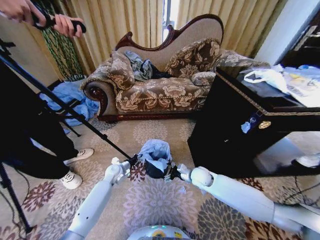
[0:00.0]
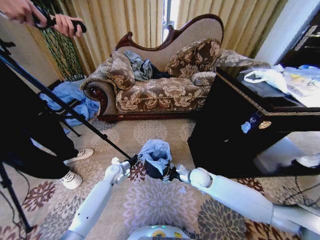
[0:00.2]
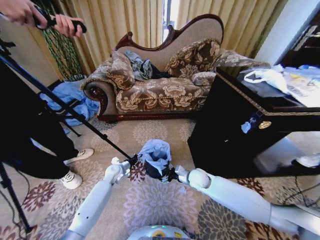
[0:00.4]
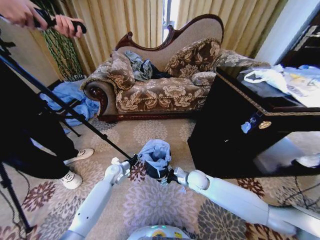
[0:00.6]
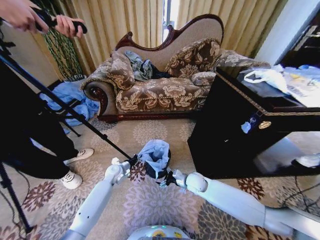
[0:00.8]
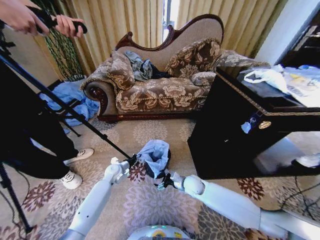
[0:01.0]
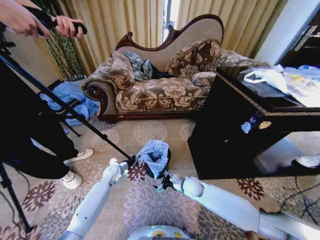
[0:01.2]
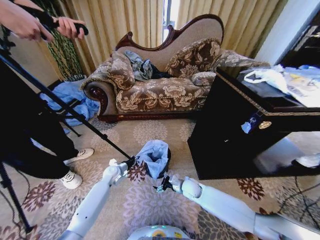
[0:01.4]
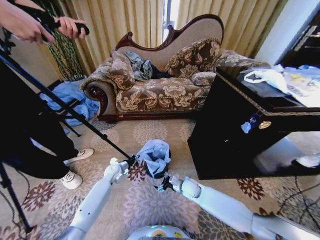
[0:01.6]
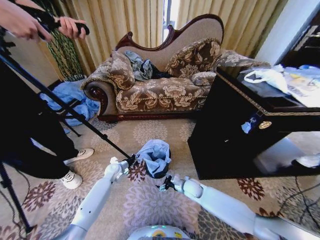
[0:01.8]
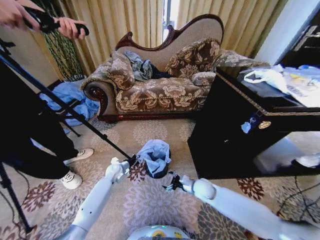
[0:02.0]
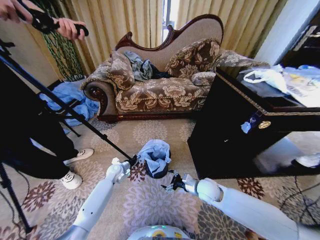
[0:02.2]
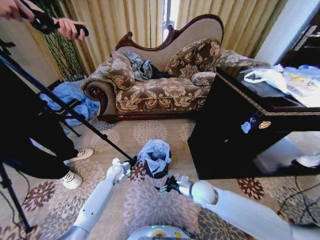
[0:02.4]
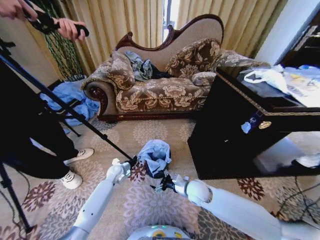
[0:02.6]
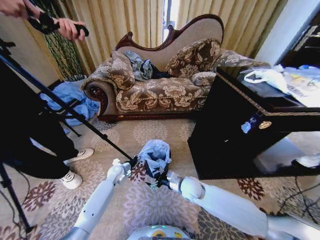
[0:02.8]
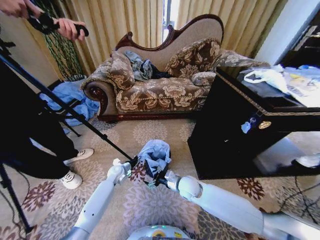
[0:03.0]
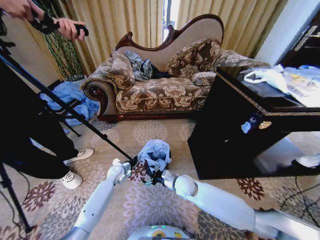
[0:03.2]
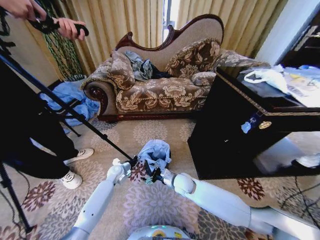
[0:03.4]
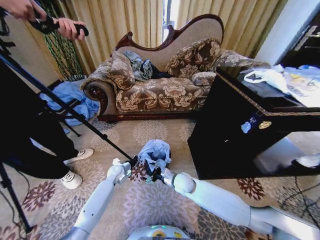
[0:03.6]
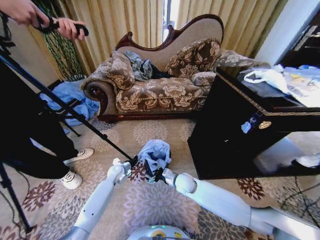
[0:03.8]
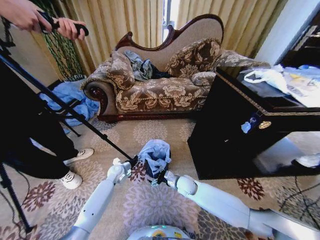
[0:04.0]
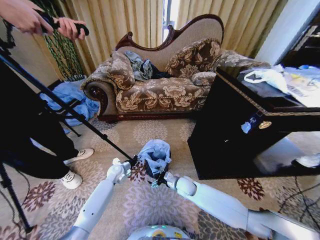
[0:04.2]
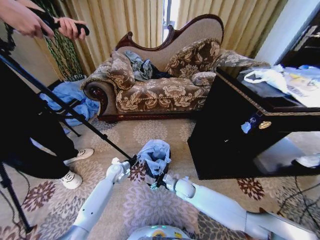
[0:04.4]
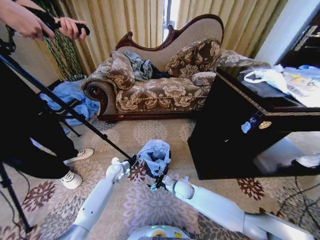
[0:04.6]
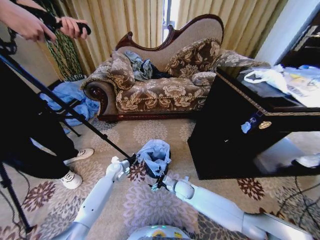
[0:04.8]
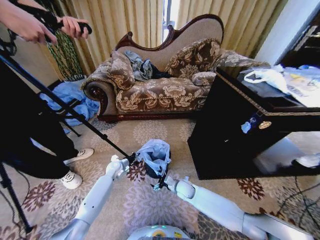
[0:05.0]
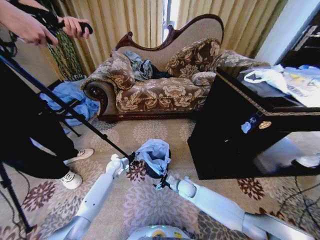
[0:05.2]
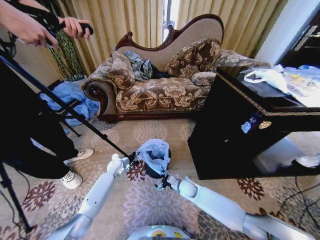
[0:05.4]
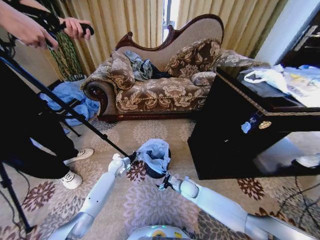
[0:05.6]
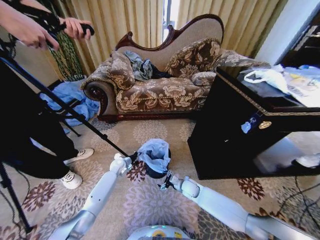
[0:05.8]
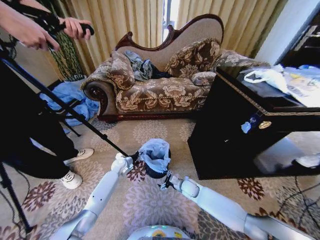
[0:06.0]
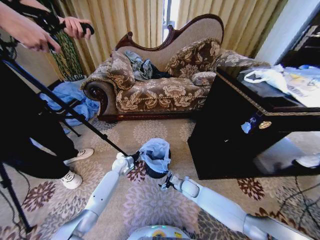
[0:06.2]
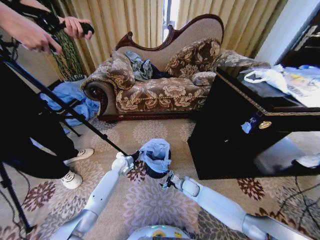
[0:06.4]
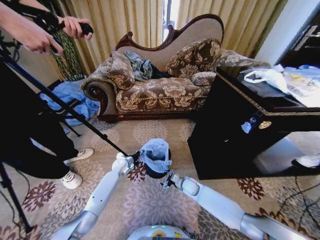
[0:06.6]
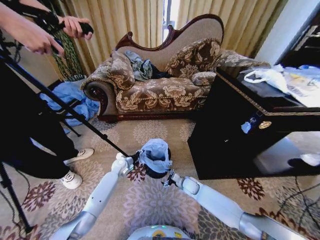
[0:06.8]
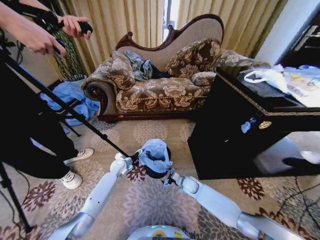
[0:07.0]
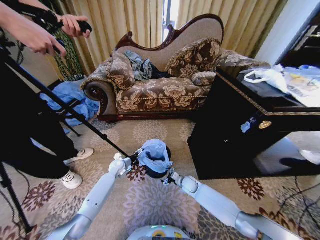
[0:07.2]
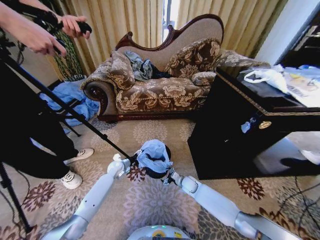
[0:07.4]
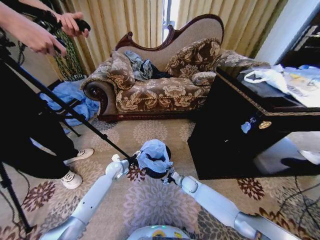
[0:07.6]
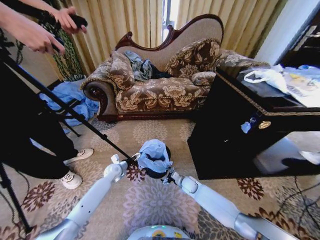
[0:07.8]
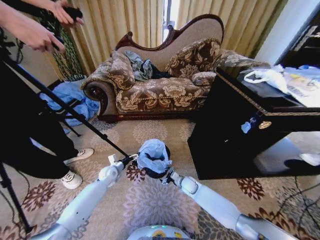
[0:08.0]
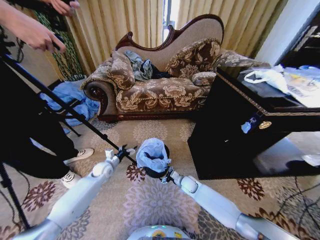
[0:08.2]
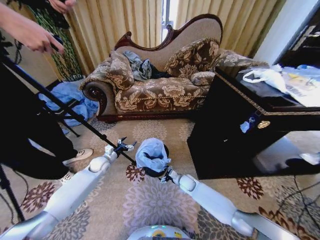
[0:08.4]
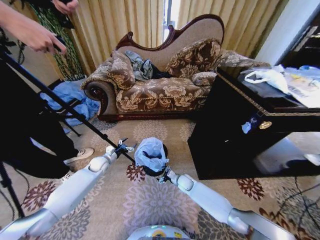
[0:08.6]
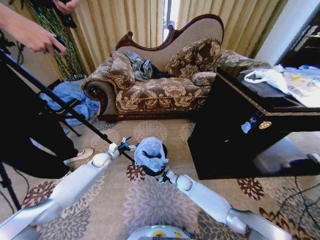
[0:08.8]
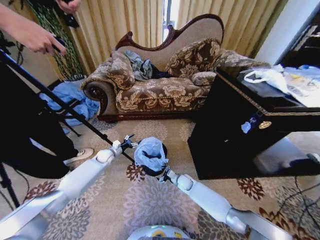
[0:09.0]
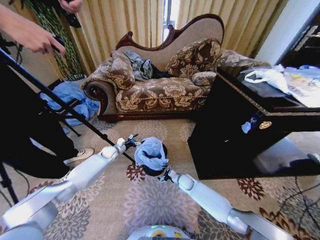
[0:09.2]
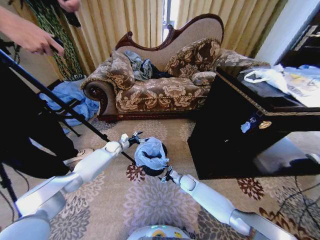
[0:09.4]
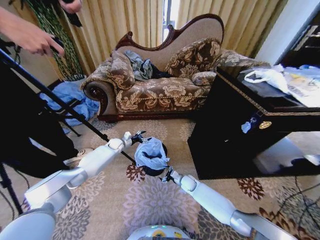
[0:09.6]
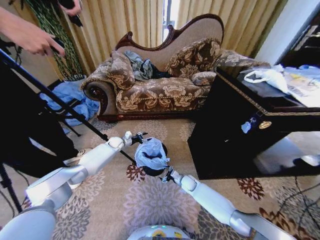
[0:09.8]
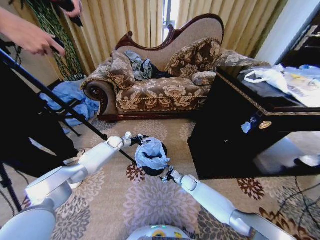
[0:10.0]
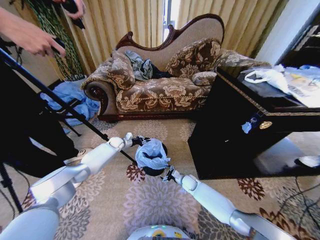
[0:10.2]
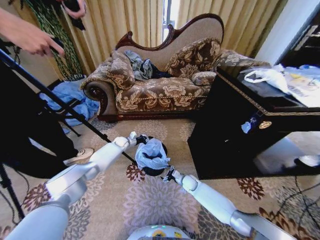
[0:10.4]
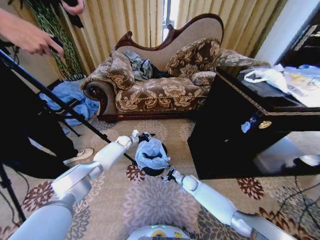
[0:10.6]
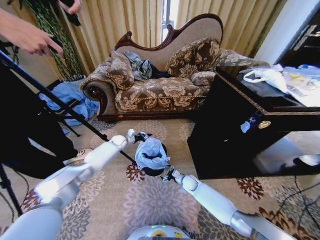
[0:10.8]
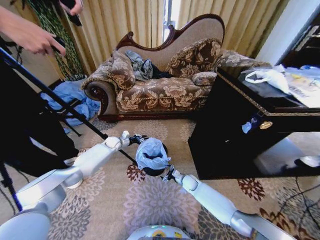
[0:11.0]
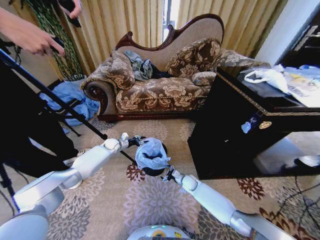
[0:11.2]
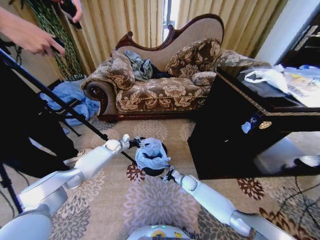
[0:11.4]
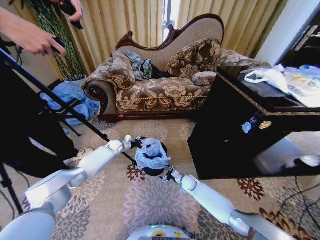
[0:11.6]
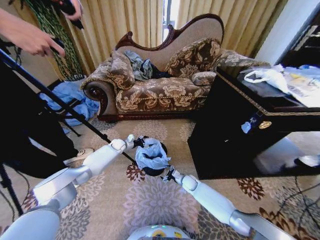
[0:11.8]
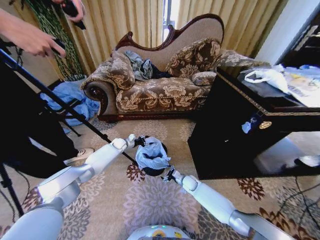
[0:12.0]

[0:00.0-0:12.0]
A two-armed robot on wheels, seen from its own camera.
Task of the whole recording: Place a garbage bag over the trash bin.
0:00.0 to 0:01.6: The right gripper shifts about 10 cm downward.
0:01.6 to 0:03.0: The right gripper goes some 10 cm upward.
0:03.0 to 0:04.4: The right gripper is displaced downward by some 5 cm.
0:04.4 to 0:06.0: The right gripper ends up roughly 5 cm from where it was.
0:06.0 to 0:07.6: The left gripper opens up.
0:07.6 to 0:09.0: The left gripper moves to the left and forward, roughly 10 cm.
0:09.0 to 0:10.4: The left gripper goes some 15 cm forward and to the right, and closes up.
0:10.4 to 0:12.0: The left gripper opens.

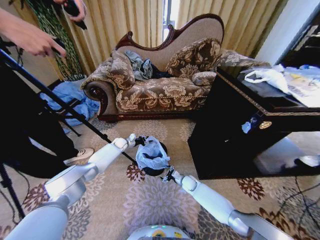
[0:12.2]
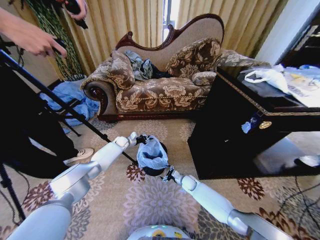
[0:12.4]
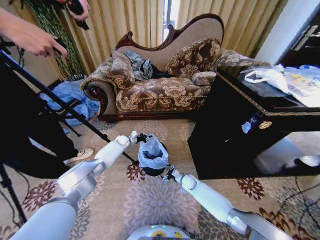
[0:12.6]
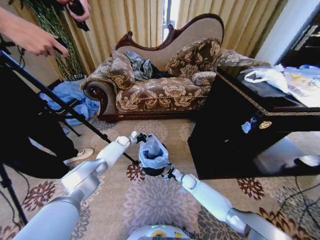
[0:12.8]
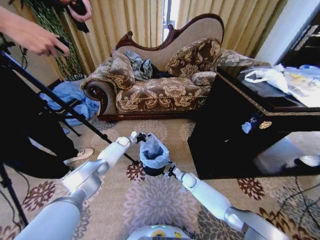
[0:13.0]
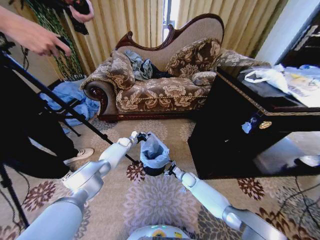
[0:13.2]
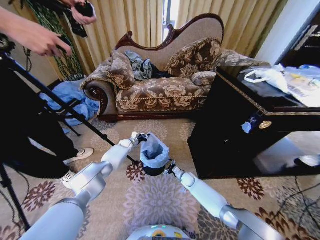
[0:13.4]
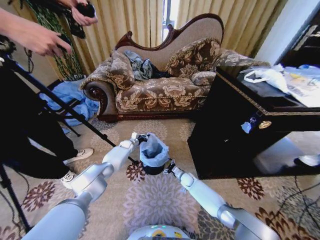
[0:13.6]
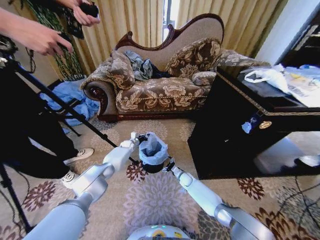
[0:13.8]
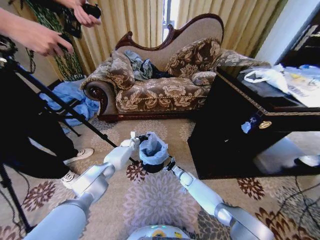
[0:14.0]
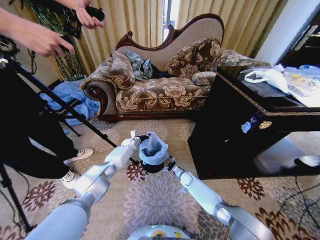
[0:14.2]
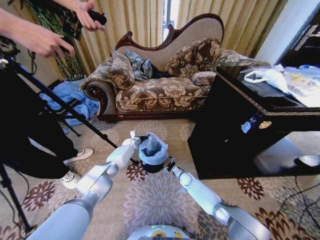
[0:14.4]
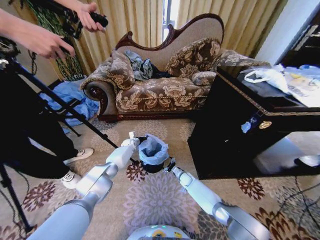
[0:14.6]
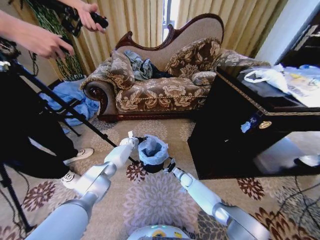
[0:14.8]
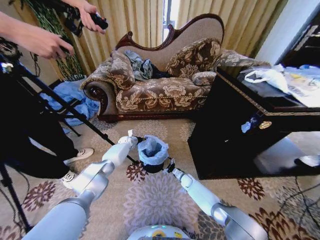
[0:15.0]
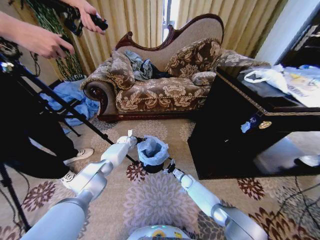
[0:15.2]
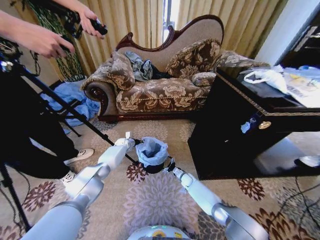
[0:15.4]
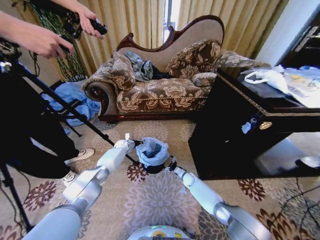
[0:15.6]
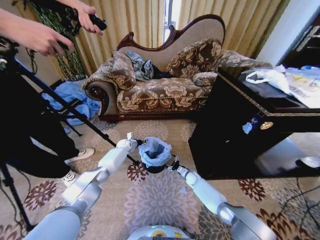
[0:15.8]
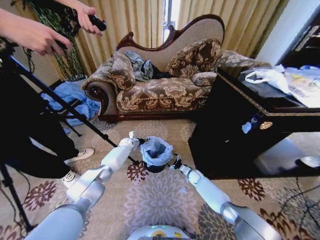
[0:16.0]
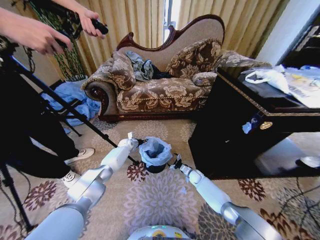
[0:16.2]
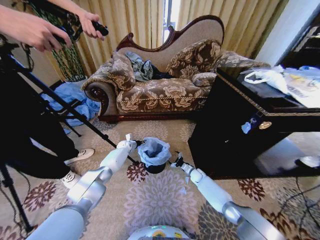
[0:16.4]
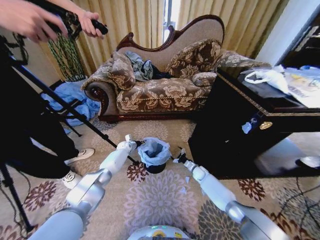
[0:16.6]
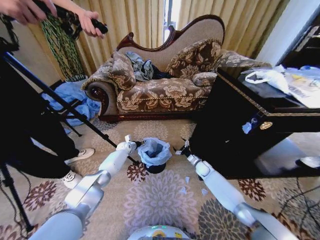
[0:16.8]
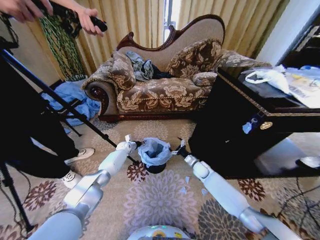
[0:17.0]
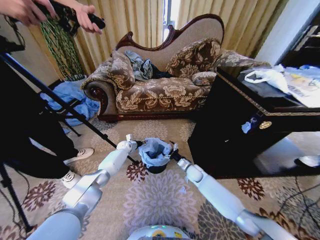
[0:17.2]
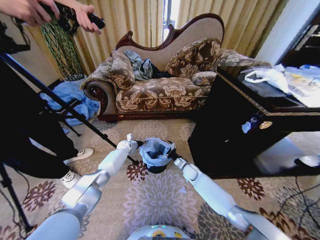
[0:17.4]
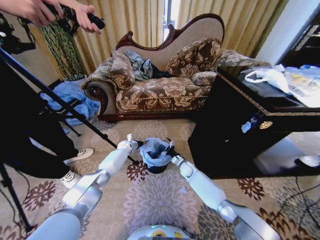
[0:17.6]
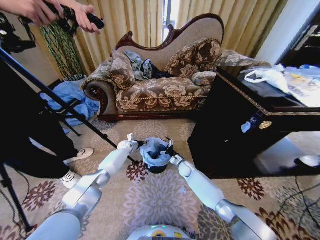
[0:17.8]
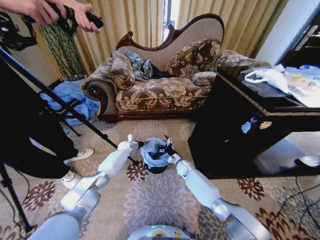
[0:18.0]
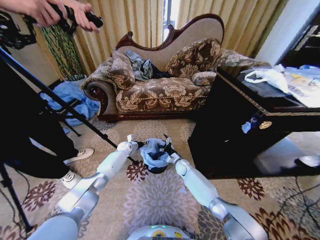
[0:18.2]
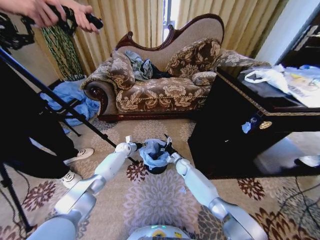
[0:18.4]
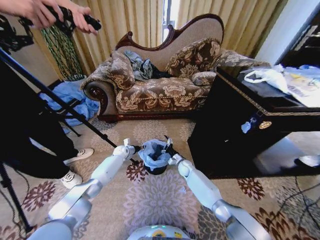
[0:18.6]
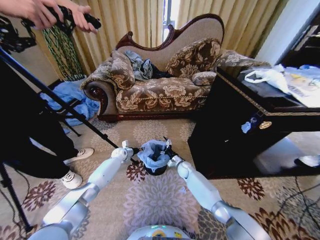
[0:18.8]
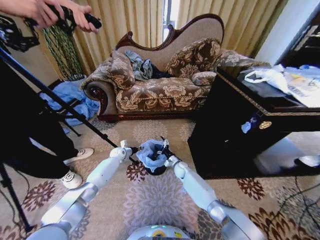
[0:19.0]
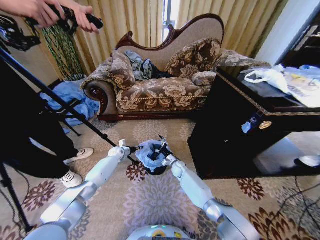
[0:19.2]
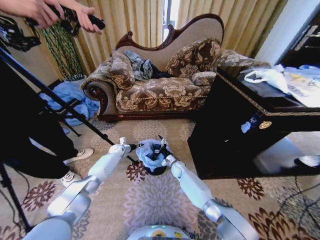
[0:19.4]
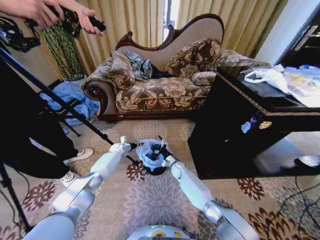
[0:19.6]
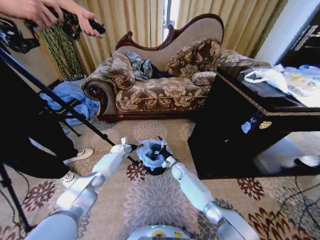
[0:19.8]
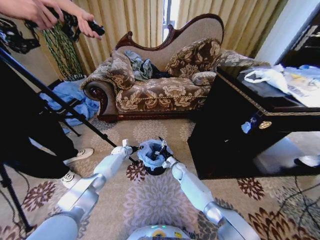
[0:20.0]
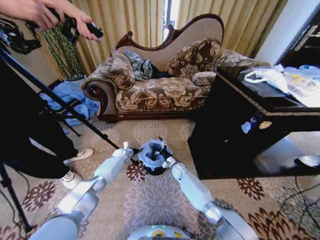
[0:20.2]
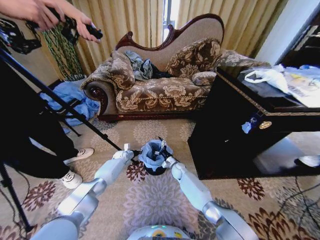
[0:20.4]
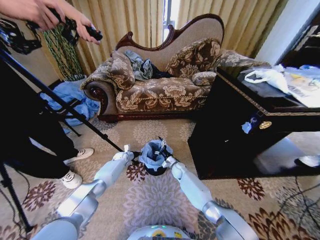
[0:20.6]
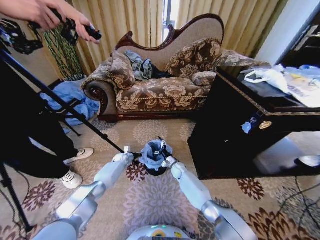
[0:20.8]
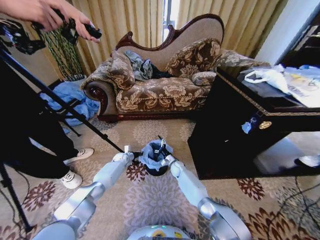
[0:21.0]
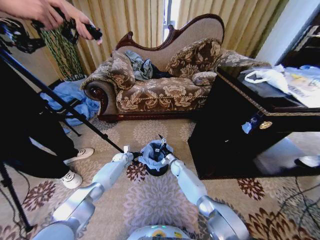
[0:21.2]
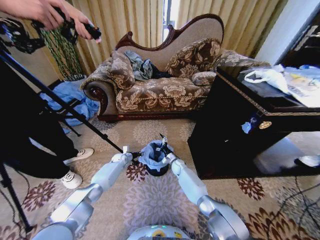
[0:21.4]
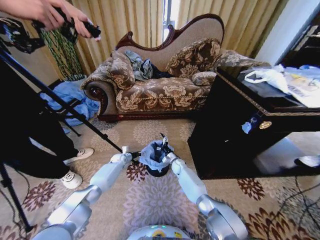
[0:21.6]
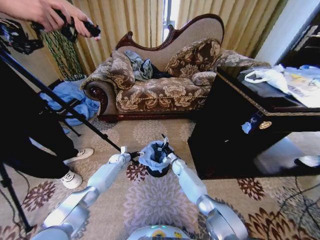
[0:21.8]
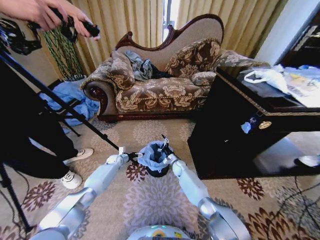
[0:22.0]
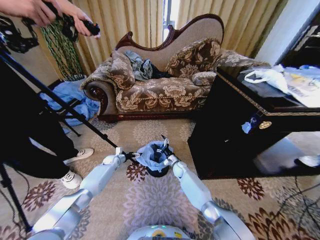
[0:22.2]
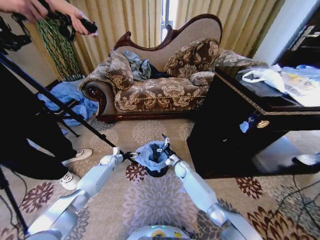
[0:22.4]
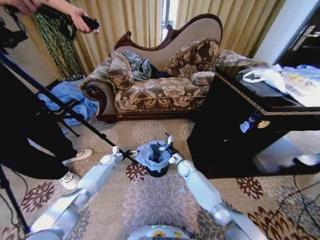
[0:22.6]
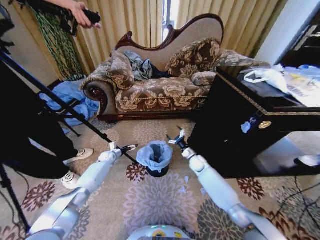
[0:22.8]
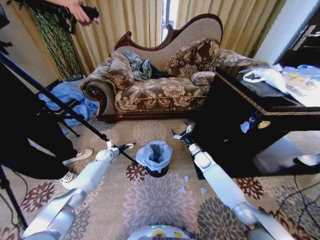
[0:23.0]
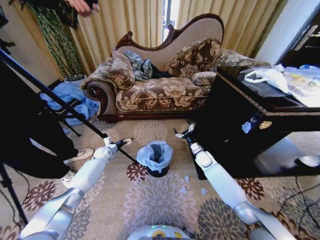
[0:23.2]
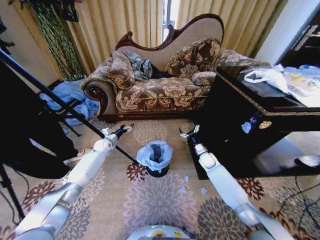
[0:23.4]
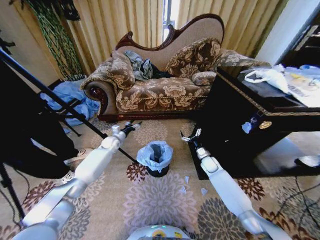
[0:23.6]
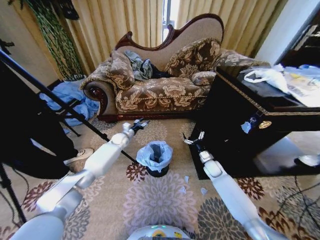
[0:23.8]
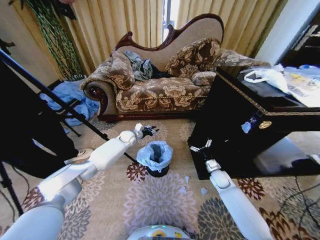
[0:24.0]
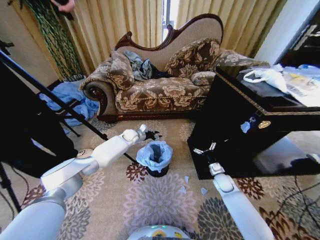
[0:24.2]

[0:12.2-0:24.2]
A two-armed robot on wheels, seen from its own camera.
Task of the whole recording: Place a garbage bag over the trash bin.
0:12.2 to 0:13.8: The left gripper changes place by roughly 5 cm, and closes up.
0:15.2 to 0:16.6: The right gripper goes about 10 cm to the right and upward.
0:16.6 to 0:18.2: The right gripper heads to the left and upward, covering roughly 15 cm.
0:18.2 to 0:19.8: The left gripper changes place by roughly 5 cm.
0:19.8 to 0:21.2: The left gripper changes place by roughly 5 cm.
0:21.2 to 0:22.6: The left gripper moves to the left, roughly 5 cm, and opens its fingers, while the right gripper ends up about 5 cm from where it was.
0:22.6 to 0:24.2: The left gripper goes about 25 cm upward, to the right and forward, and closes. Meanwhile the right gripper moves to the right and backward, about 20 cm.
